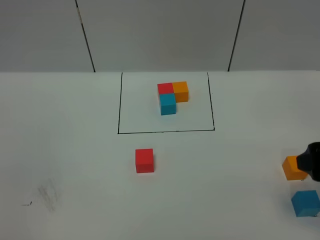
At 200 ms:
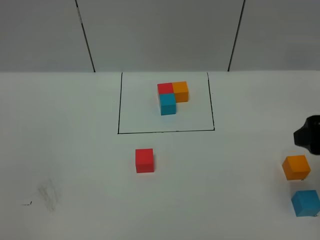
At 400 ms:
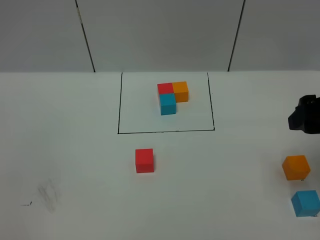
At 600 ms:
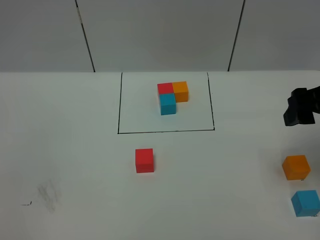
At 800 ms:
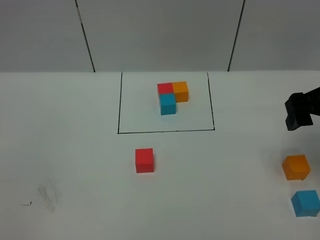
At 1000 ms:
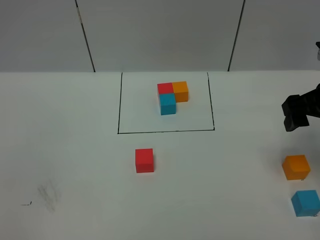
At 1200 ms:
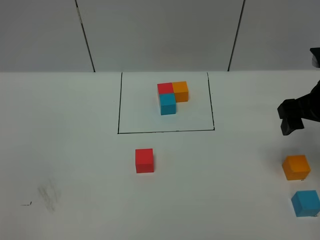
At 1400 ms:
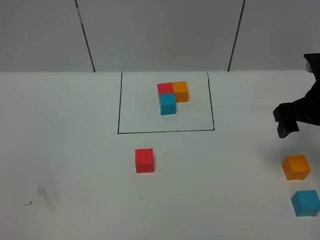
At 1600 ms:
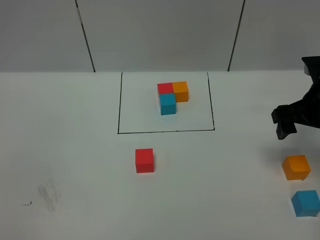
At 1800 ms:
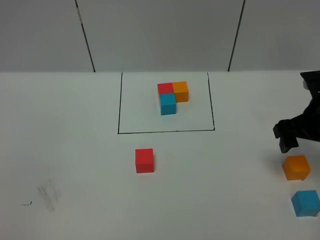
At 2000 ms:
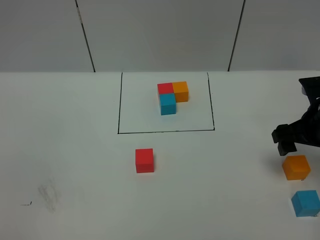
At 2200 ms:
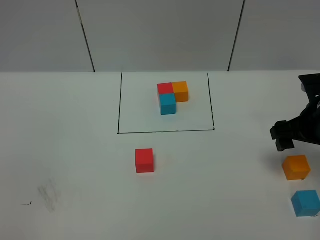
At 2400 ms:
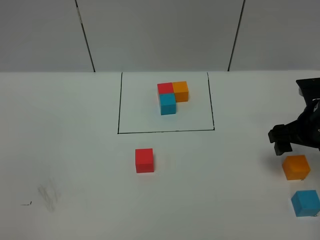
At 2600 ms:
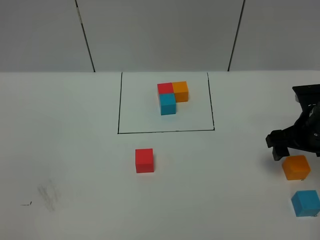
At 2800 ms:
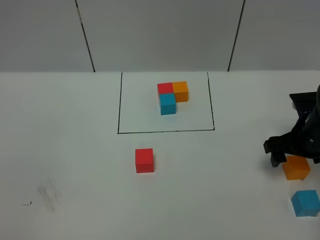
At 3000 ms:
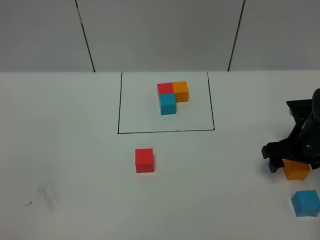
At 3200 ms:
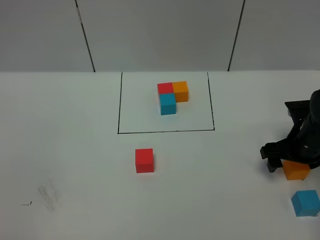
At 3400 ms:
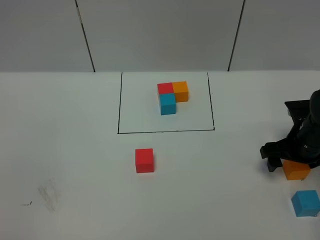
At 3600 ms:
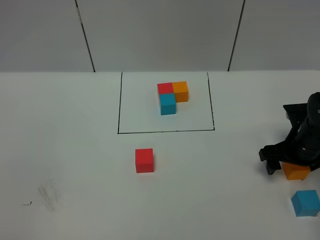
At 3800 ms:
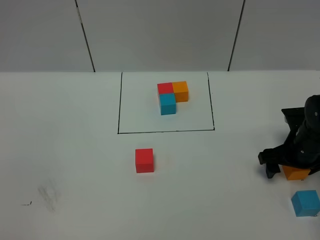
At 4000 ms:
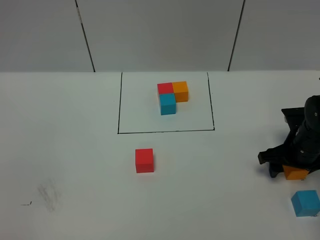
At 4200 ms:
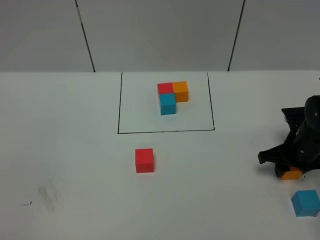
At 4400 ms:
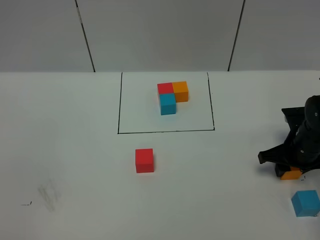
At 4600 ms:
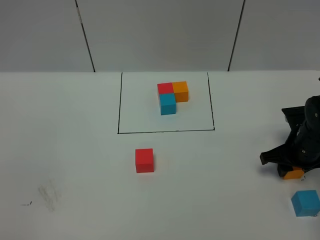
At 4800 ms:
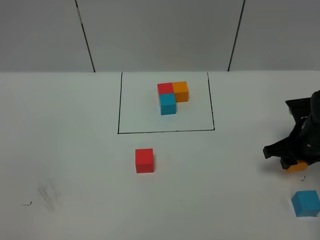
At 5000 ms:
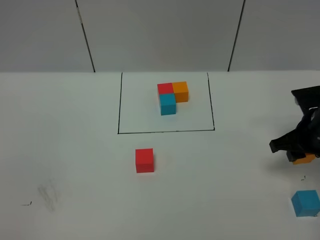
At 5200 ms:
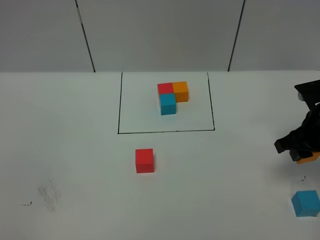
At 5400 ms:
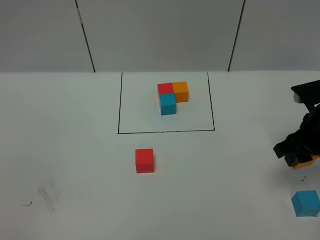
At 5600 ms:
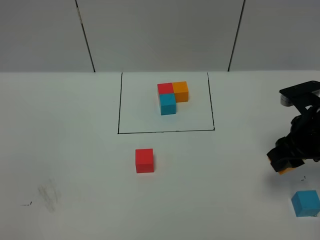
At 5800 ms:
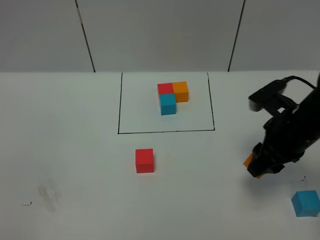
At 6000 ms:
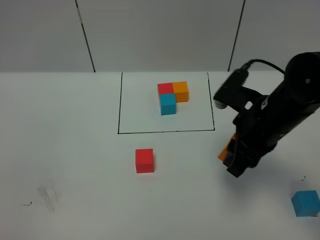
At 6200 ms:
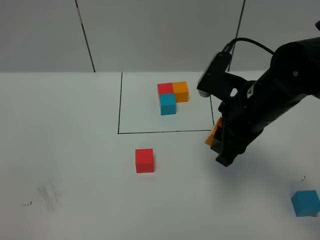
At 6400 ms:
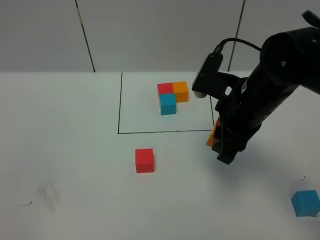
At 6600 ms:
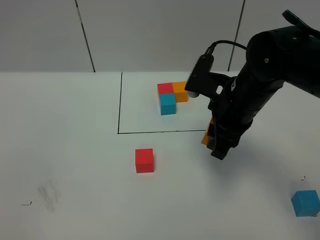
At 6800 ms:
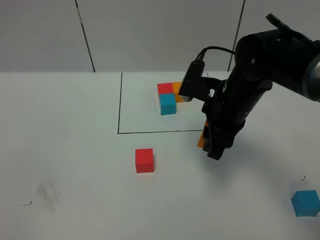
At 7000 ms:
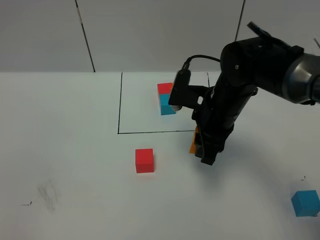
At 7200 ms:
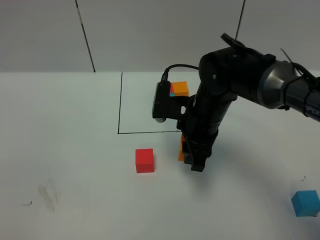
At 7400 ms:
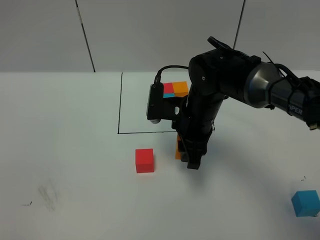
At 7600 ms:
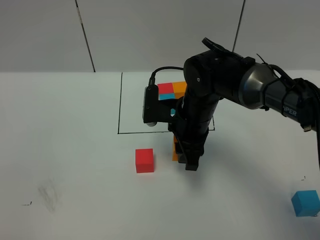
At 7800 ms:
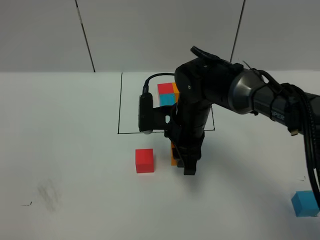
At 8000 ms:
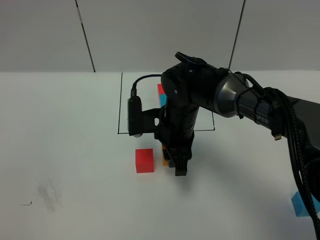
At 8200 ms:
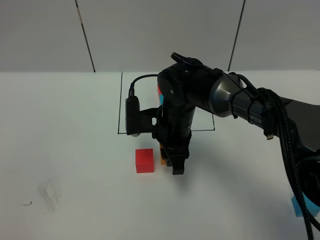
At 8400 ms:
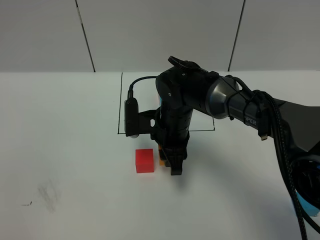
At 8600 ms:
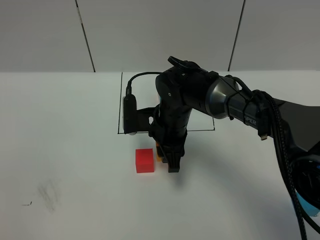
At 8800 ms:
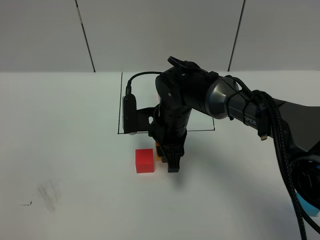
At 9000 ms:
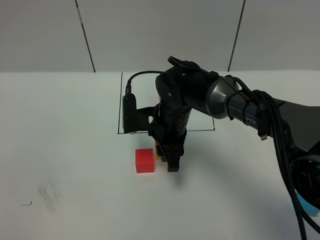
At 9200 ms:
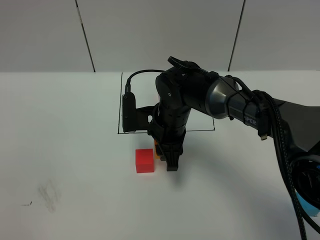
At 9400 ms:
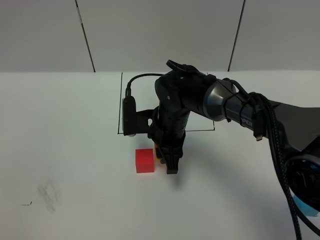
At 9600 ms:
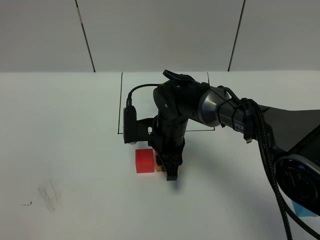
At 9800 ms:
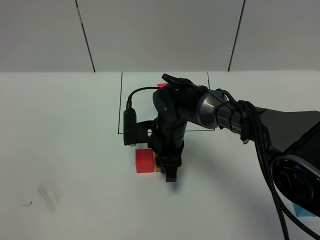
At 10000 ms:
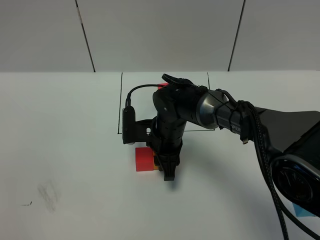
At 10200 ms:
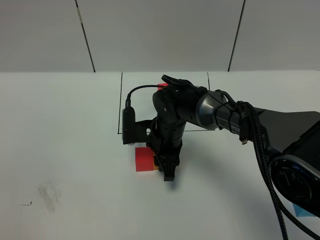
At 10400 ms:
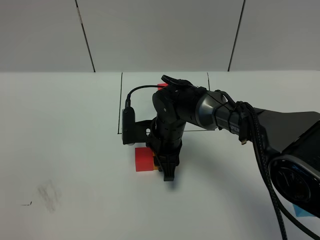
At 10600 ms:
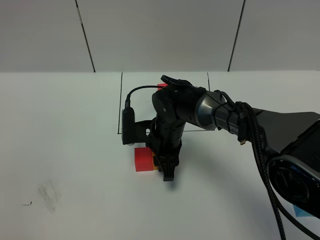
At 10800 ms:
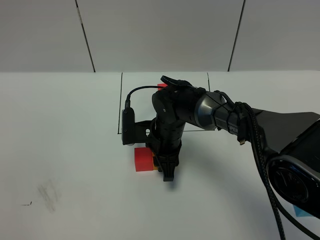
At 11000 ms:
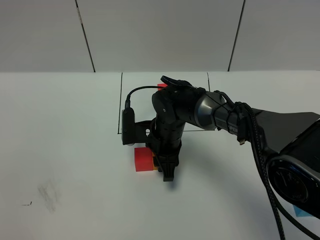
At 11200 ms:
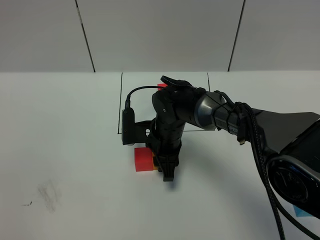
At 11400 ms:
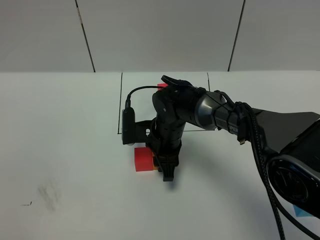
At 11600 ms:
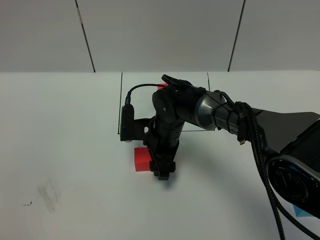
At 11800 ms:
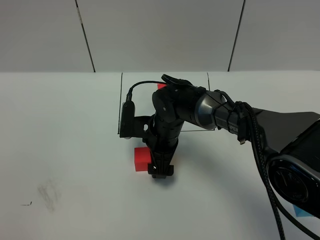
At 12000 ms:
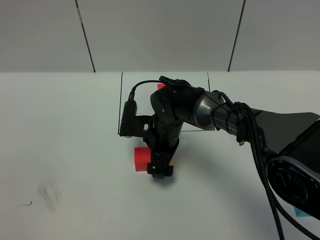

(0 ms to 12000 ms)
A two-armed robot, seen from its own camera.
Task of the whole recording: According to the building block template in front, assemble the scattered blocks together.
0 ms - 1600 ms: The right gripper heads forward, covering some 15 cm.
1600 ms - 3000 ms: The right gripper is displaced downward by roughly 10 cm.
3000 ms - 4400 ms: The right gripper closes its fingers.
4400 ms - 6000 ms: The right gripper shifts about 20 cm upward and to the left.
6000 ms - 7600 ms: The right gripper moves to the left, forward and downward, about 15 cm.
9000 ms - 10400 ms: The grippers make only small movements.
10400 ms - 12000 ms: The right gripper opens its fingers.

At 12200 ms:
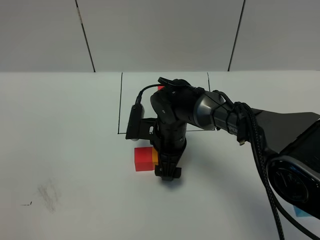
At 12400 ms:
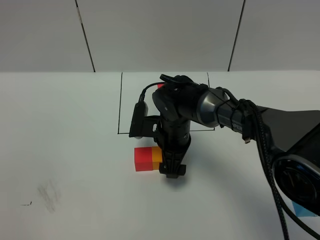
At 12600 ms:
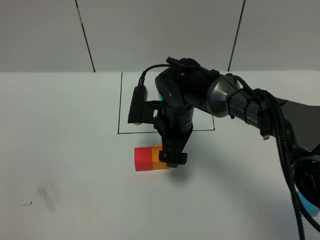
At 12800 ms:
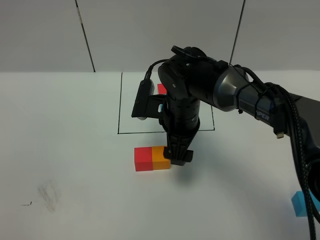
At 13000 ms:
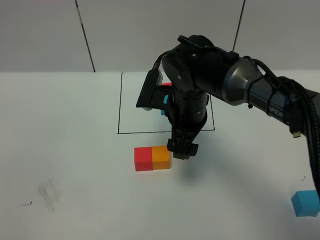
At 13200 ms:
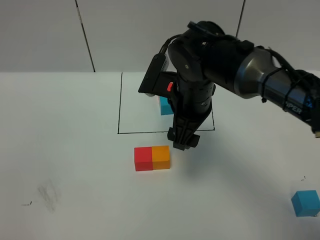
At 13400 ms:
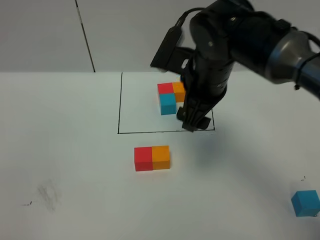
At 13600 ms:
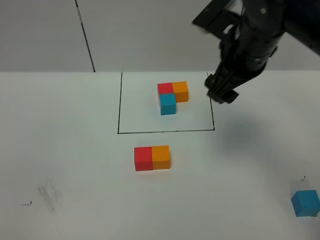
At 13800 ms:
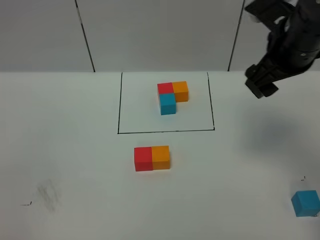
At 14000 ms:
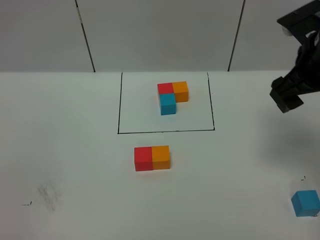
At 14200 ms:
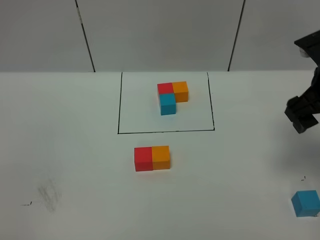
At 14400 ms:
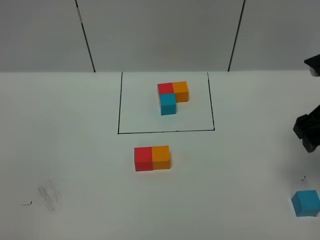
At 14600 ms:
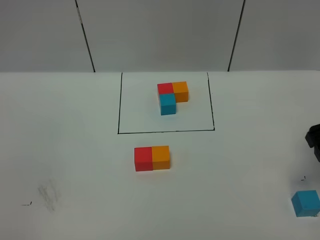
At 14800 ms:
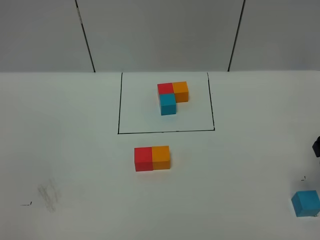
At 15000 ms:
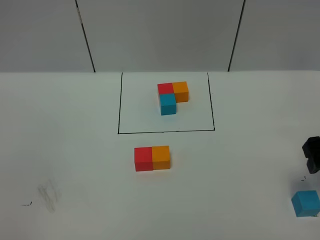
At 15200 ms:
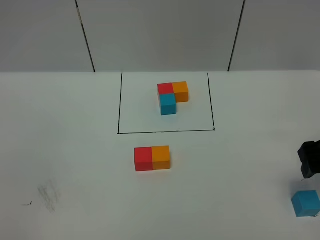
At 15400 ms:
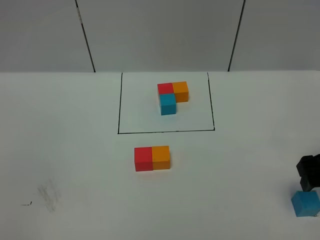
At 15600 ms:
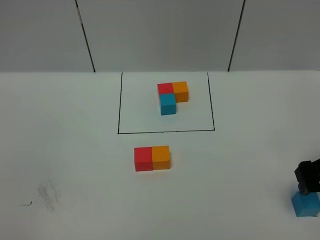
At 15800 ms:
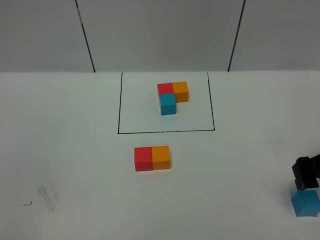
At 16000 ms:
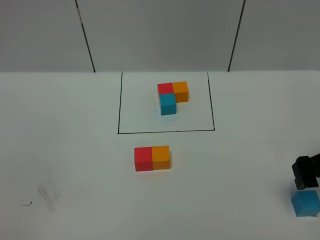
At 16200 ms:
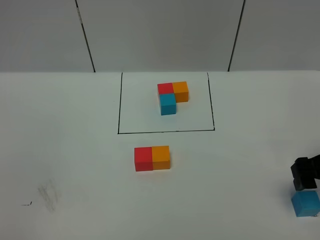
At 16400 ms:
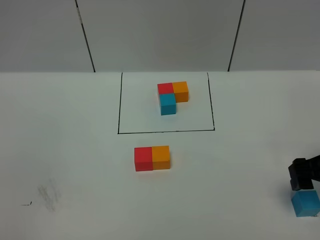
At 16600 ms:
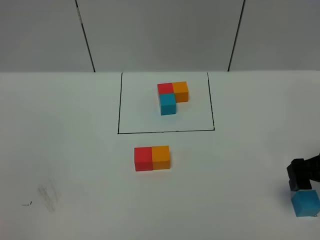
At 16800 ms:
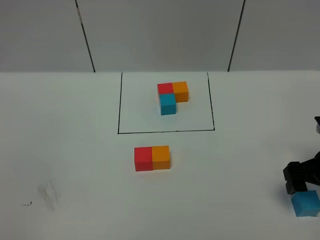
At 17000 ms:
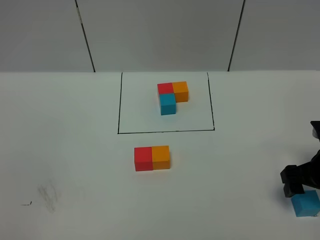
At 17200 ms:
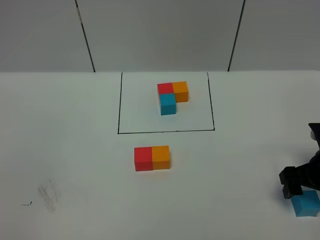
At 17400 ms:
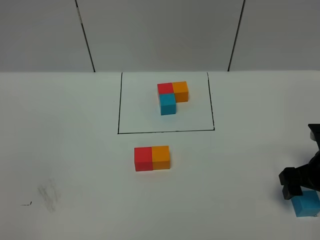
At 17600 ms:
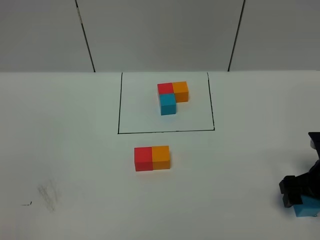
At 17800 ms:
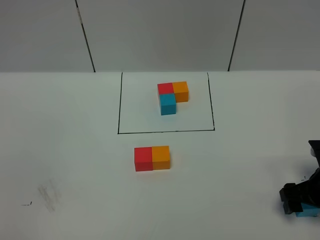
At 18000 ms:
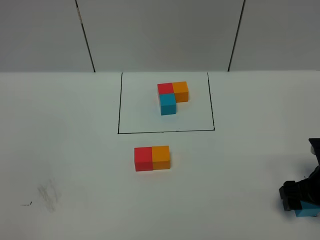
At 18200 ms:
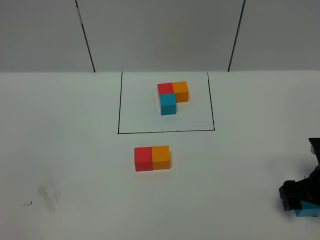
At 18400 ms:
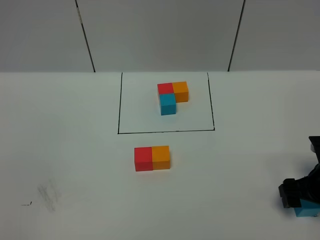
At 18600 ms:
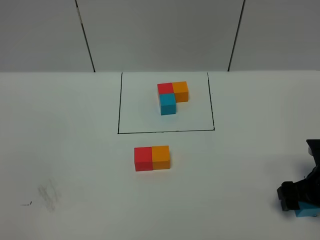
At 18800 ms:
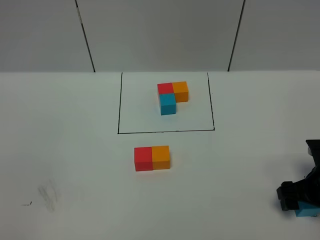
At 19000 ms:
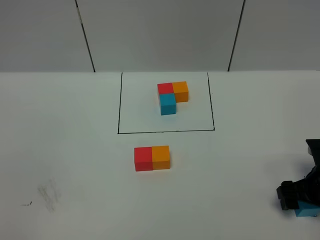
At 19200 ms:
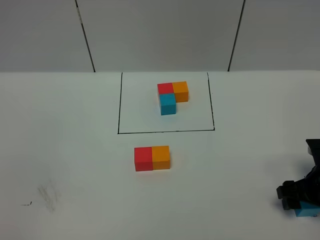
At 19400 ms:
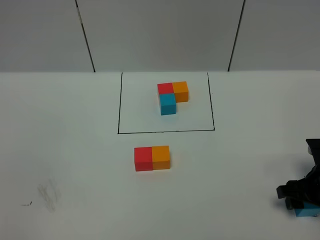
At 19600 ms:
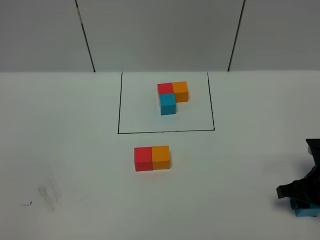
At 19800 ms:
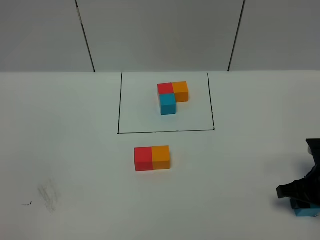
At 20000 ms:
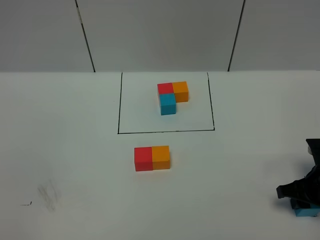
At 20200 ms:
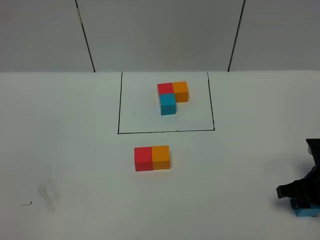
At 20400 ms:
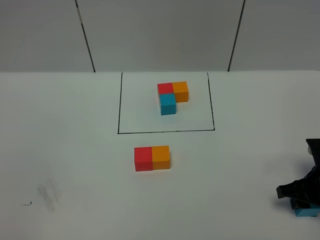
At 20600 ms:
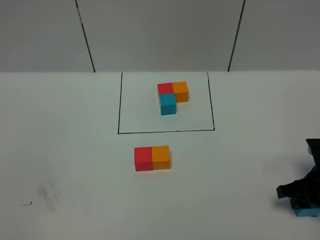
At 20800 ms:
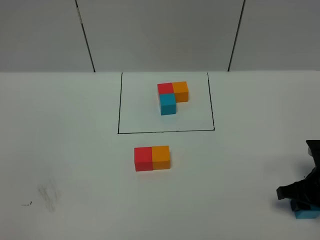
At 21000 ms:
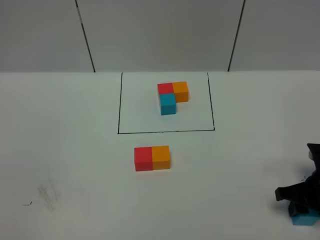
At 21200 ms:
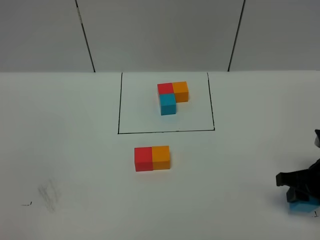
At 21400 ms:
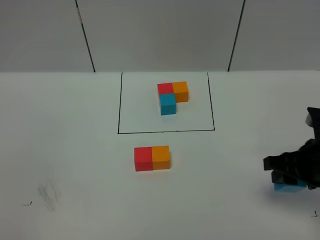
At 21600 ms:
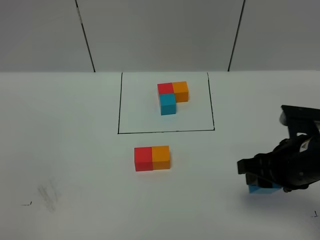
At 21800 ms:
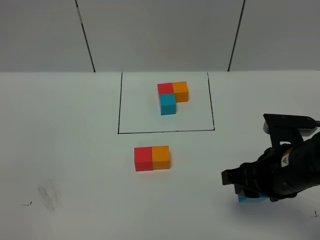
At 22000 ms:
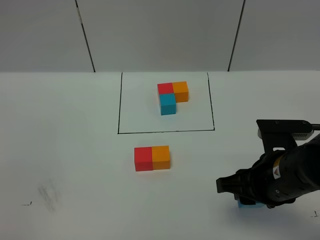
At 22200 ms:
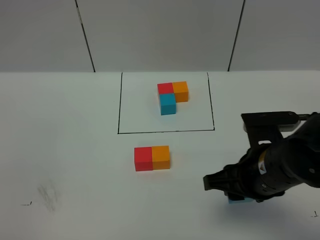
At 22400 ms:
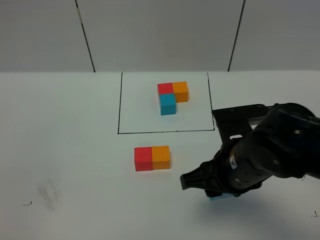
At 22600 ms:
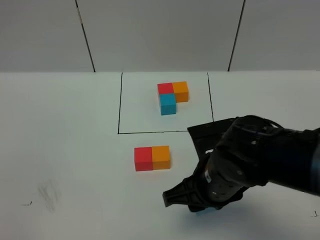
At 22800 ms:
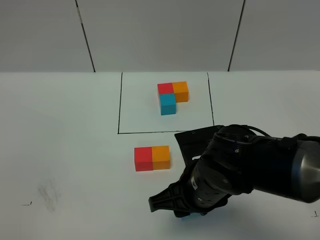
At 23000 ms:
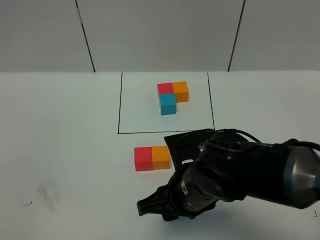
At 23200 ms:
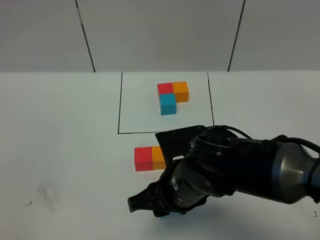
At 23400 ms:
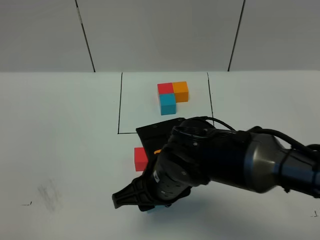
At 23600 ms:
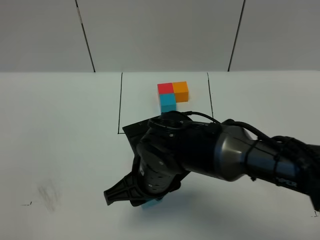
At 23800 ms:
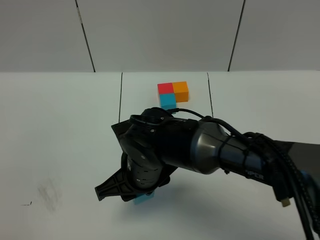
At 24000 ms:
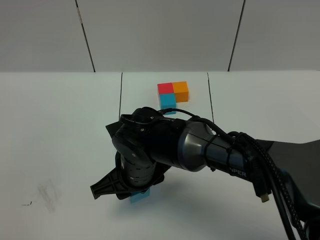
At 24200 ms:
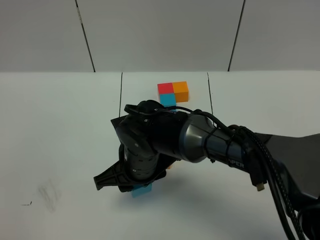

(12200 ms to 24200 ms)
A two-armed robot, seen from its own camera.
Task of the whole recording: According to the building block template in front, assemble the scattered blocks together.
12200 ms - 13800 ms: The right gripper shifts roughly 30 cm upward and to the right.
13800 ms - 15200 ms: The right gripper goes roughly 15 cm downward, to the right and backward.
15200 ms - 16600 ms: The grippers make only small movements.
16600 ms - 18200 ms: The right gripper moves downward, approximately 5 cm.
18200 ms - 19800 ms: The right gripper closes.
19800 ms - 21200 ms: The right gripper shifts by some 5 cm.
21200 ms - 22600 ms: The right gripper heads to the left, covering about 20 cm.
22600 ms - 24200 ms: The right gripper goes some 15 cm to the left and forward.
